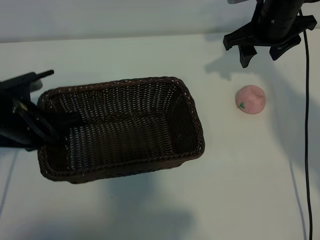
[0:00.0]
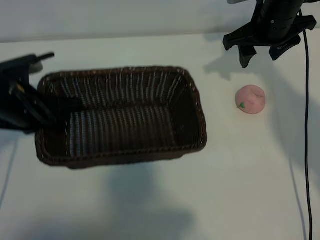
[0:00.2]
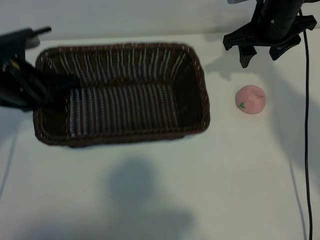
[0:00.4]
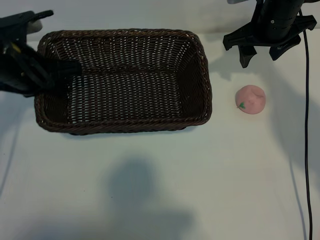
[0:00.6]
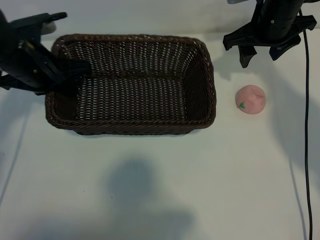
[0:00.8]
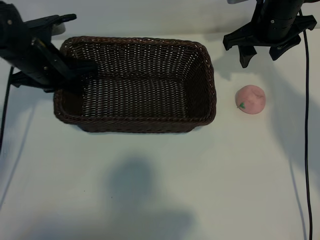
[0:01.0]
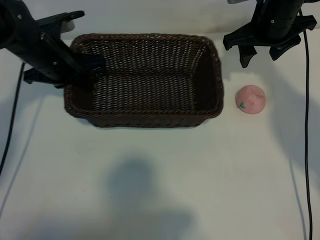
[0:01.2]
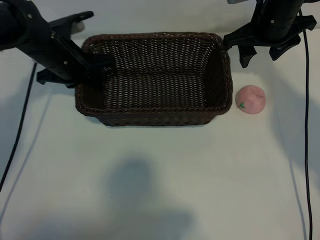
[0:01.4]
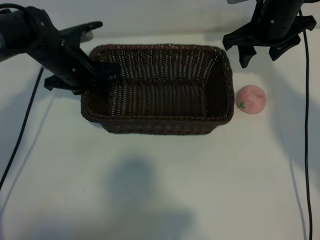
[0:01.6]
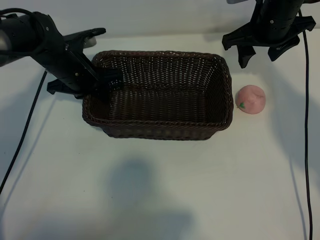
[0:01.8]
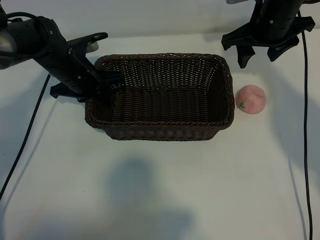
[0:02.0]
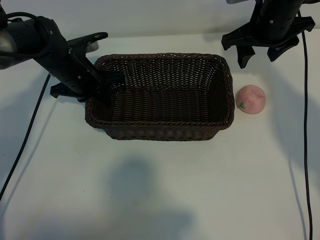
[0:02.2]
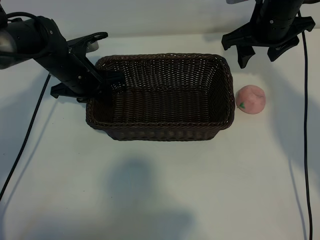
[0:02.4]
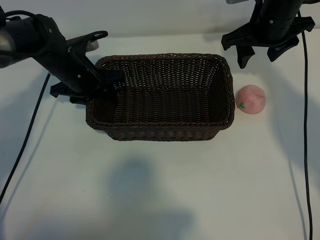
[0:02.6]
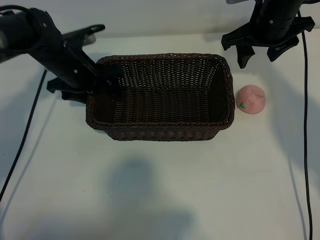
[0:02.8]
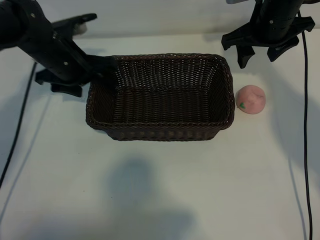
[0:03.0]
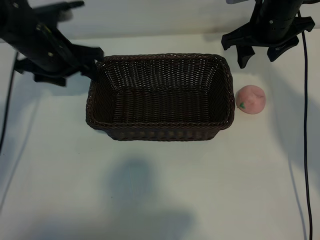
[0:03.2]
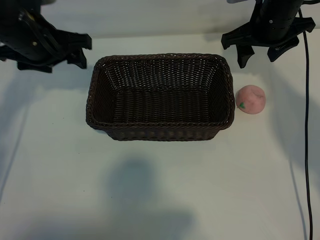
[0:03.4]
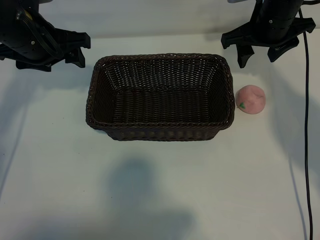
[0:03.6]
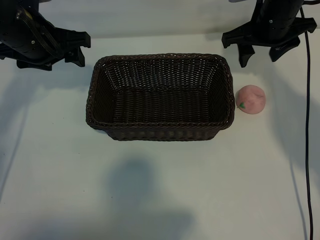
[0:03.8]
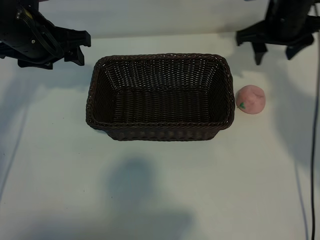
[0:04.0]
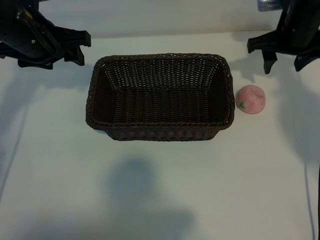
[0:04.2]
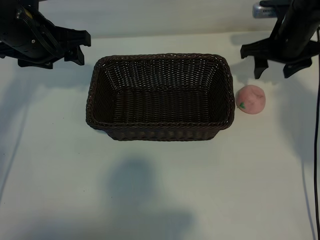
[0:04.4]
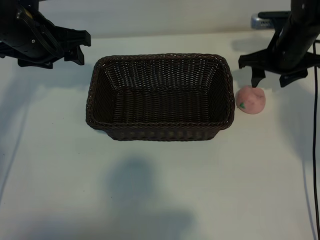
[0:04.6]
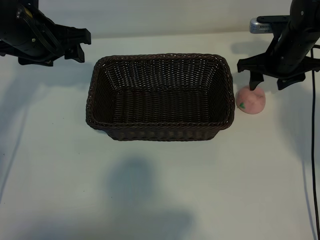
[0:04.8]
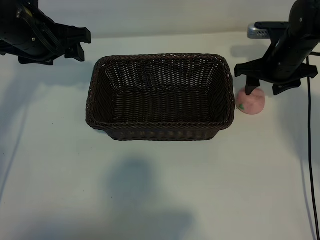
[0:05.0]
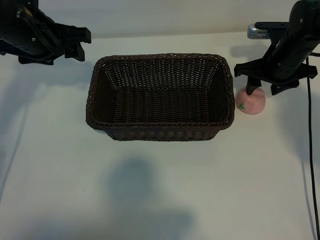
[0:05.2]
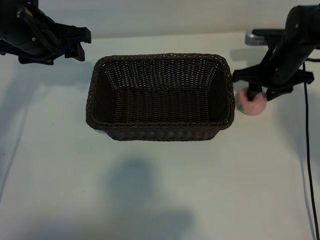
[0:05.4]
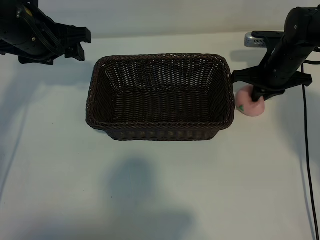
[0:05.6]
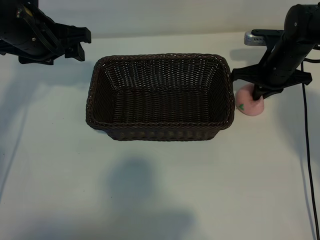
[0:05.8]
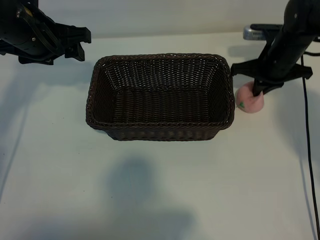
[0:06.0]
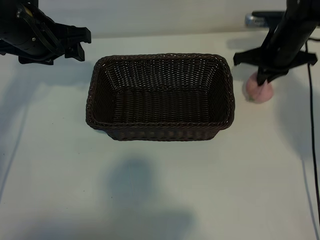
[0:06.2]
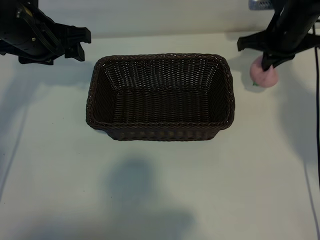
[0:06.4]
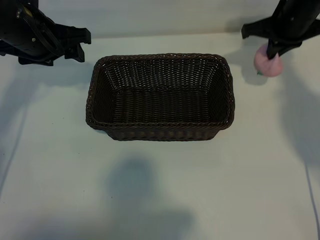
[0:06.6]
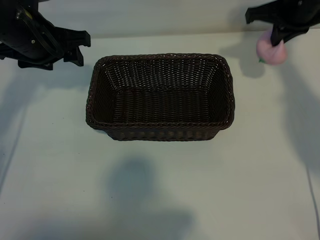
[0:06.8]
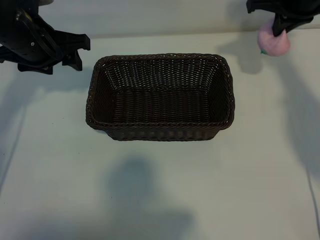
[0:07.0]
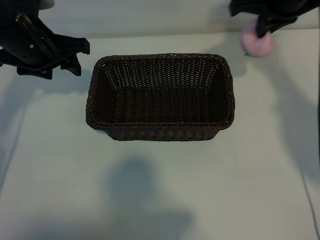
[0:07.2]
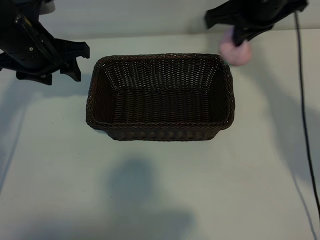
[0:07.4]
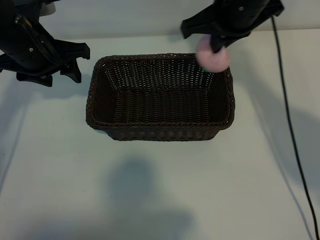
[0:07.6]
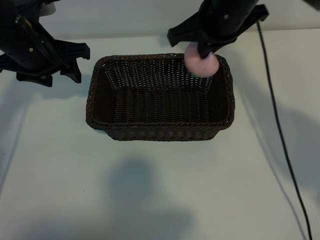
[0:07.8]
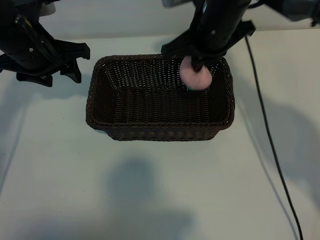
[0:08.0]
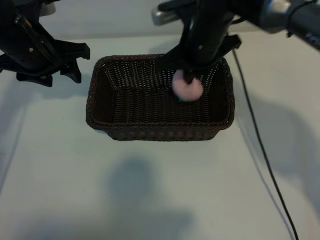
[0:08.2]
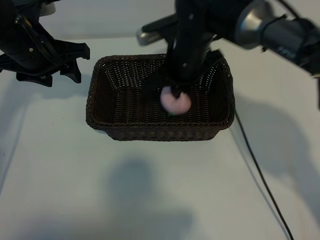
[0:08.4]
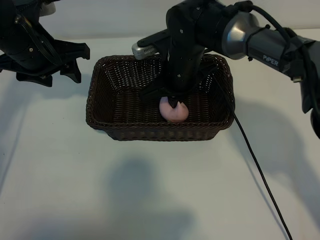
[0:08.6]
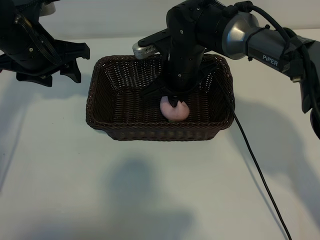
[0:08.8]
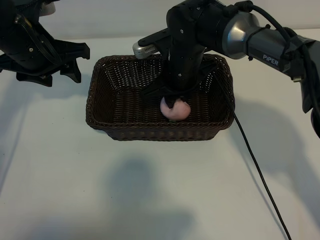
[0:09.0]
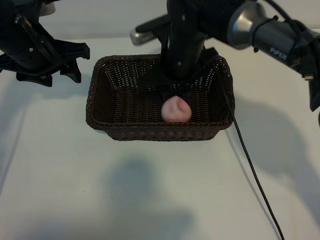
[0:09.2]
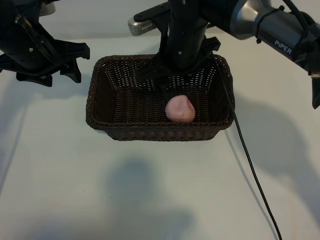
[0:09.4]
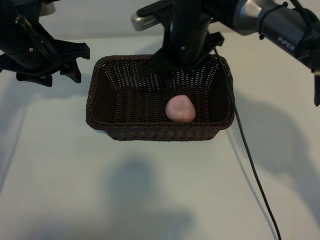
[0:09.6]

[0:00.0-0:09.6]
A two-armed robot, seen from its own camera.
Task of the whole recording: pick up the peach and put it into the basket.
Step, 0:00.0 to 0:02.6: Place the basket in the center of view with left gripper.
Step, 0:03.0 to 0:05.8: Grasp the peach with right gripper.
Step, 0:06.0 to 0:09.0: Place the peach in the basket with right gripper.

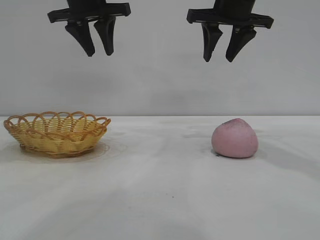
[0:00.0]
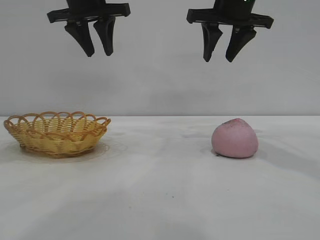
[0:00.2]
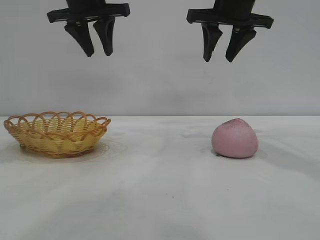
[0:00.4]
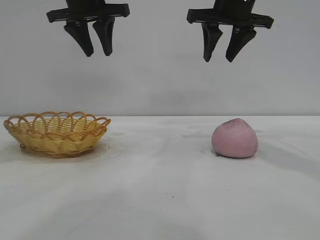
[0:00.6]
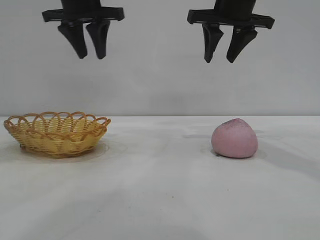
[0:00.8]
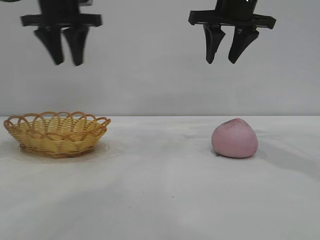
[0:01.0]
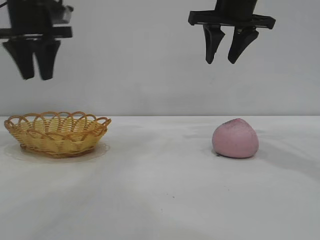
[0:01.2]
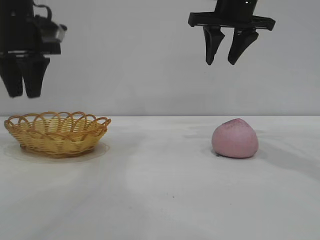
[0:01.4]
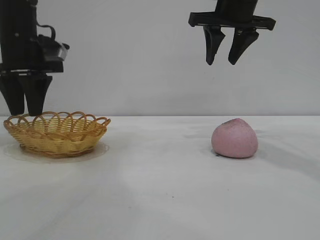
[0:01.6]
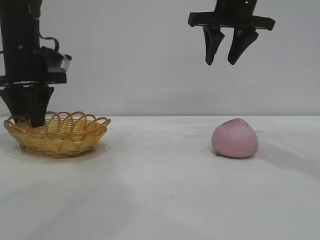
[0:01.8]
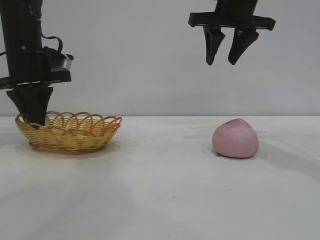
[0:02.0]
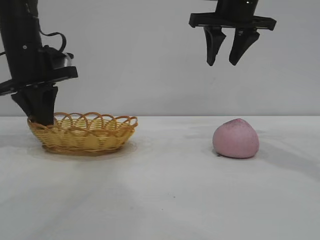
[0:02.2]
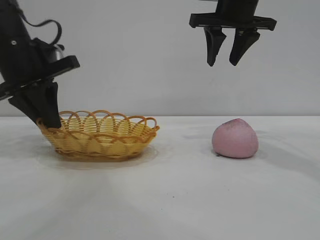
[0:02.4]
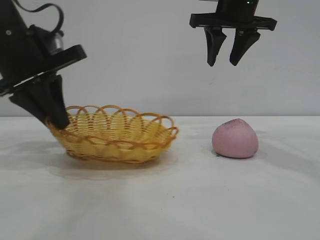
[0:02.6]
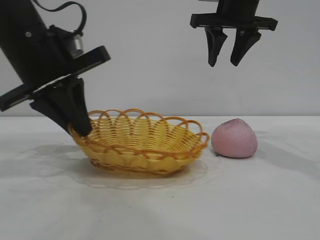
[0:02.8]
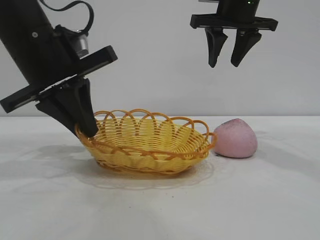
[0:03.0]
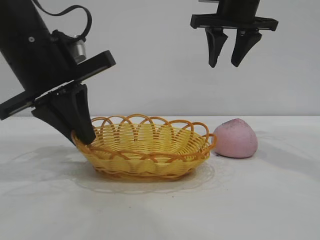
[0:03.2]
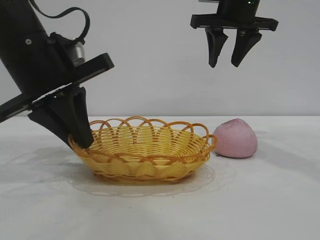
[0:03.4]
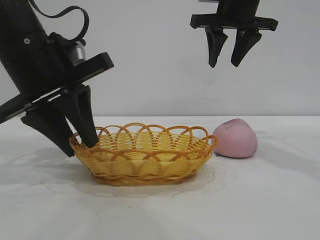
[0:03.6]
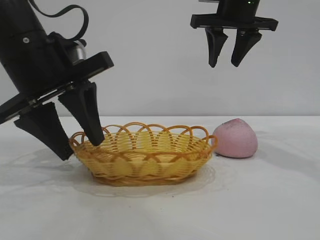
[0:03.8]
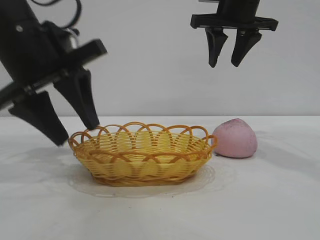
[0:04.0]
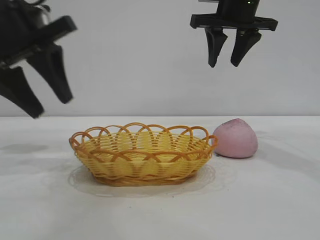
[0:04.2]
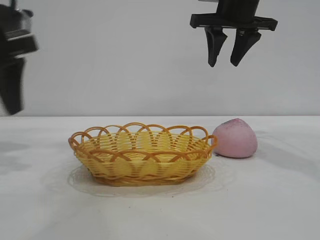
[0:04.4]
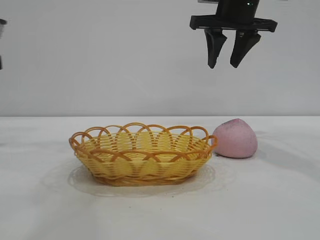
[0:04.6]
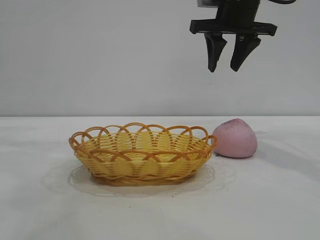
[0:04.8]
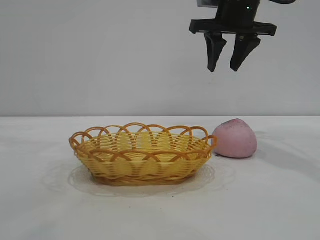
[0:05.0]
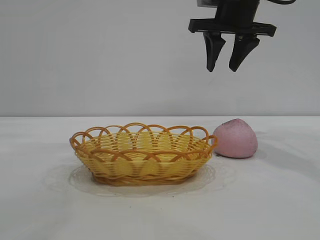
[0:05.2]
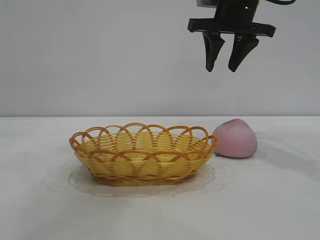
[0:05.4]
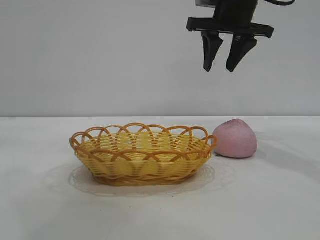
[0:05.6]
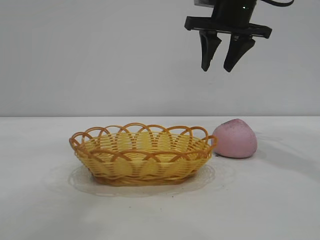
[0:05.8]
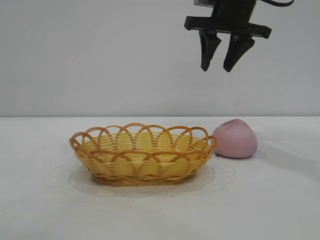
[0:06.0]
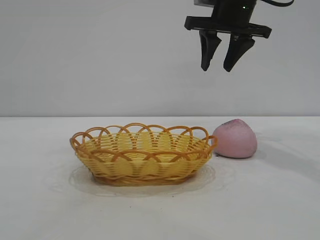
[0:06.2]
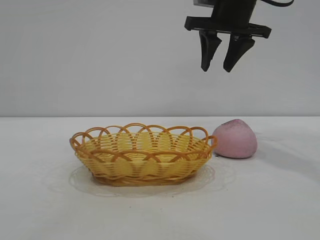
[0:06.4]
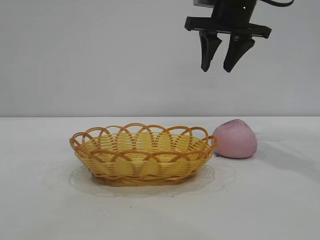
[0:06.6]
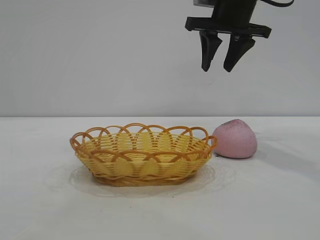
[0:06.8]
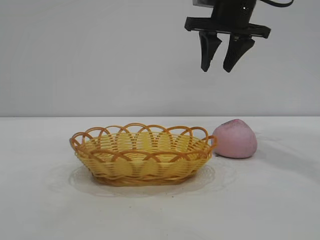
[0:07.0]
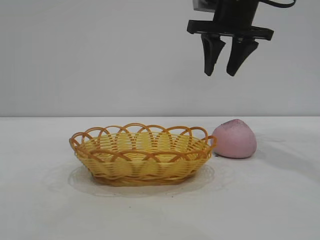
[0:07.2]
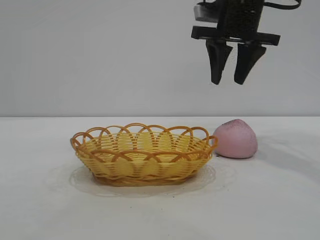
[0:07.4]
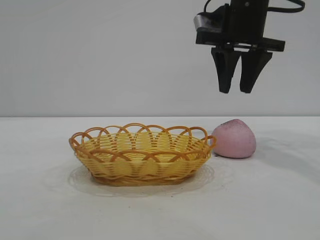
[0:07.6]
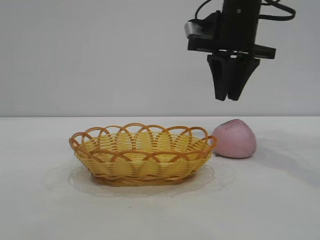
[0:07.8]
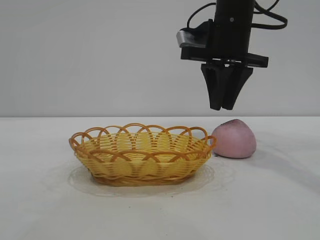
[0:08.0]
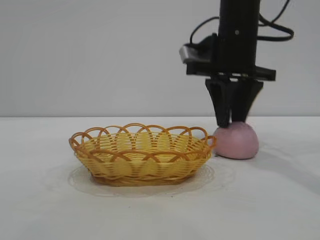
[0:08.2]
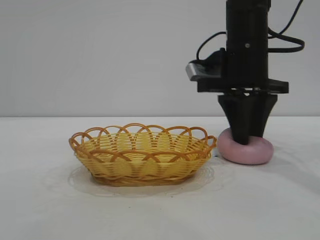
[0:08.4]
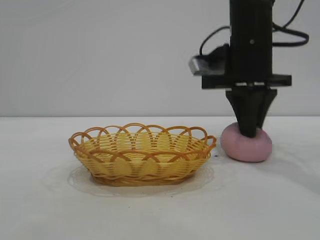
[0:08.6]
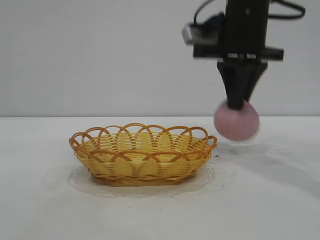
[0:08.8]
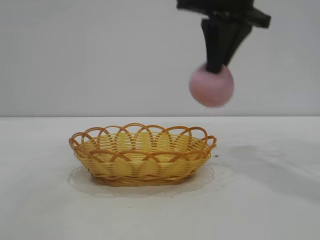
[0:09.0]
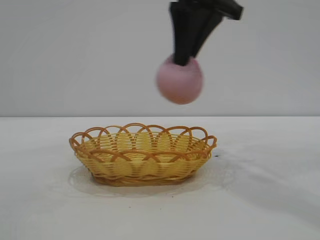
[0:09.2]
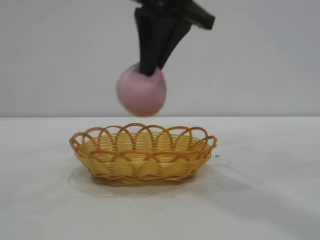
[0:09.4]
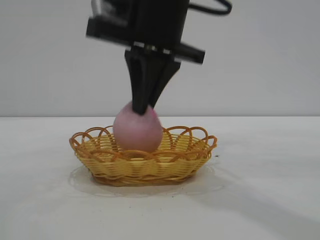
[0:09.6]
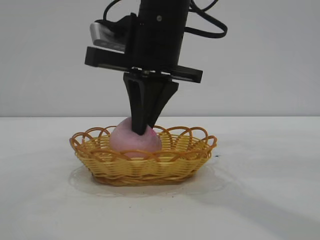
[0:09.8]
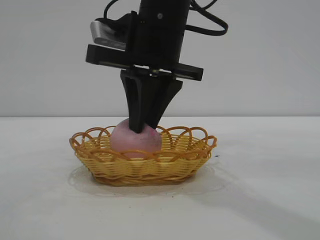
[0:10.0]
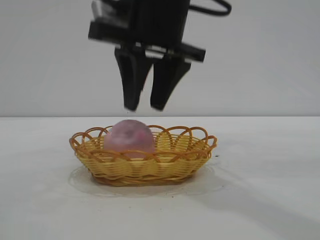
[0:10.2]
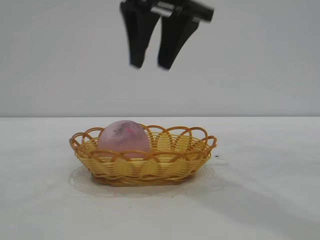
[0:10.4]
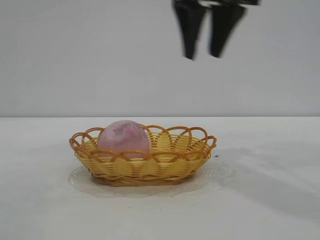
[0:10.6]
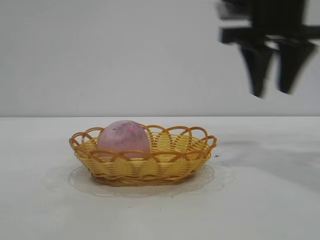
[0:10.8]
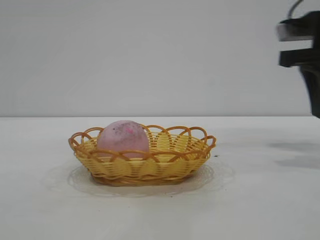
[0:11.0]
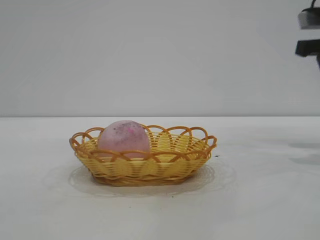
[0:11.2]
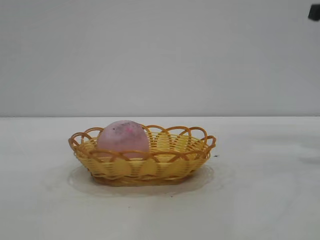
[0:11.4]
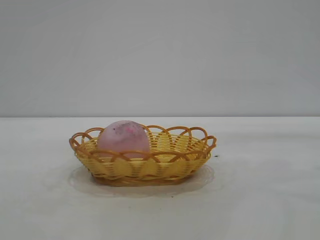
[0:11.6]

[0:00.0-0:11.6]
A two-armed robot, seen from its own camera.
Task of the whole recording: pick up the peach and put it into the basket.
Step, 0:00.0 to 0:04.0: Move the basket to the center of view.
Step, 0:04.4 to 0:08.8: Pick up the peach.
Step, 0:09.0 to 0:10.2: place the peach into the basket.
